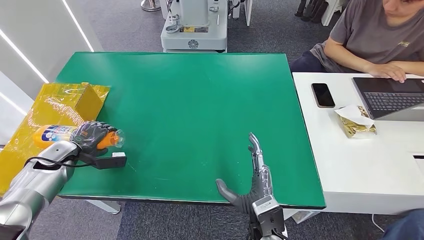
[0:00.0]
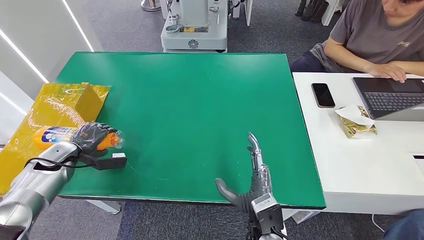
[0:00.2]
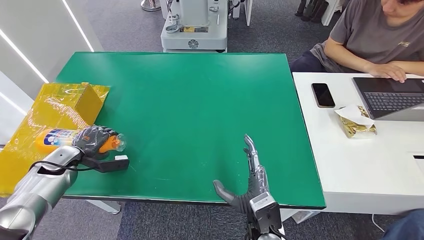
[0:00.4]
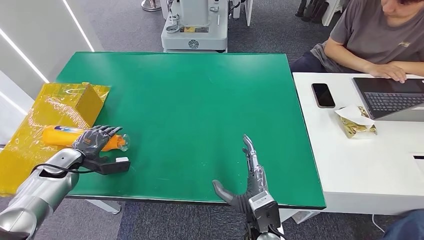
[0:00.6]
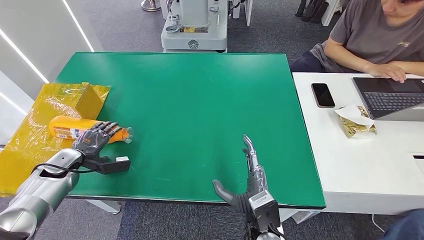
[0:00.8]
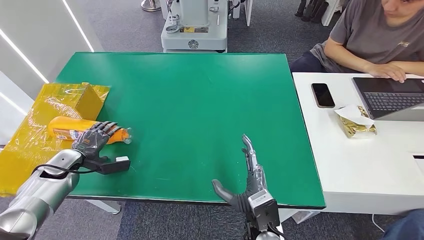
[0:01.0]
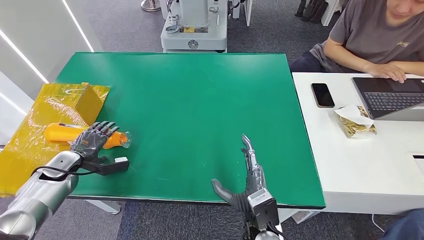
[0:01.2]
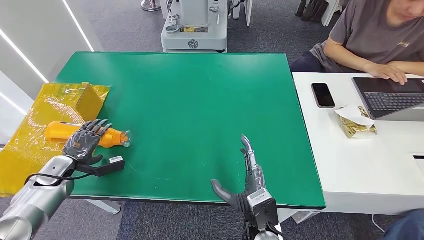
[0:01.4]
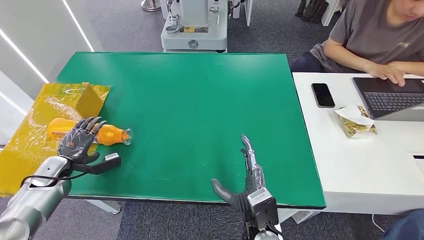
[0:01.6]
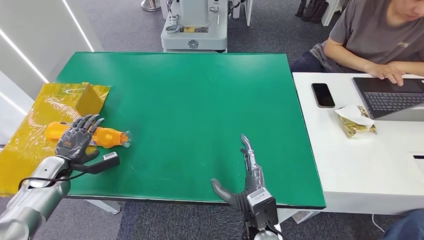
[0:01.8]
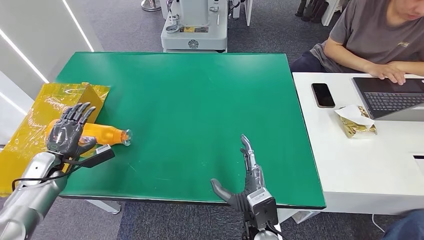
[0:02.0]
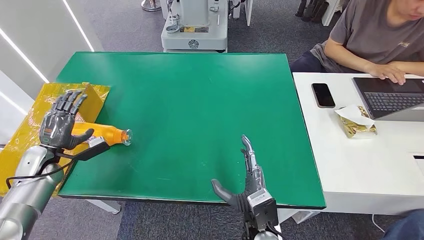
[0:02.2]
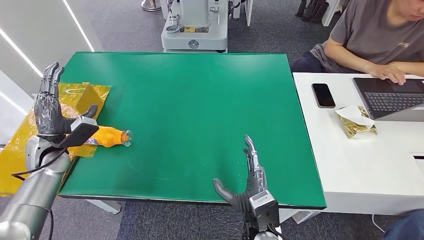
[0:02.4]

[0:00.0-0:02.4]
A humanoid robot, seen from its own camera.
Step, 0:00.0 to 0:02.4: Turn the bottle to the front side.
0:00.0 to 0:01.2: The hands stay close to where they were, moving slightly.
0:01.2 to 0:02.4: The left hand goes approximately 5 cm upward.

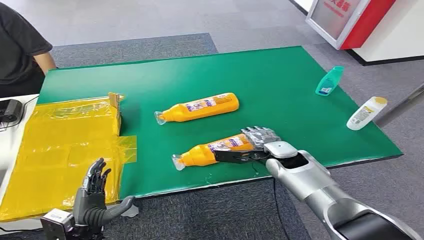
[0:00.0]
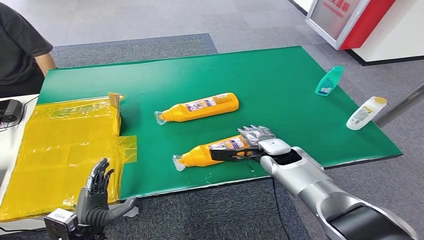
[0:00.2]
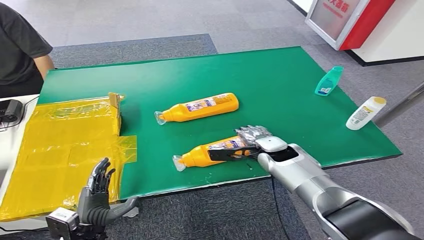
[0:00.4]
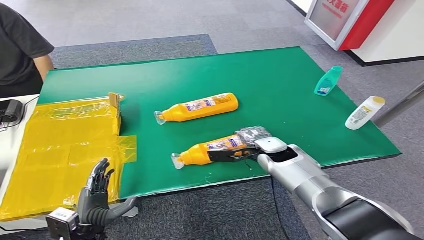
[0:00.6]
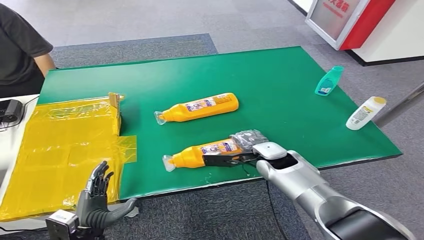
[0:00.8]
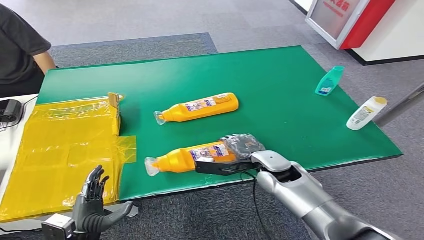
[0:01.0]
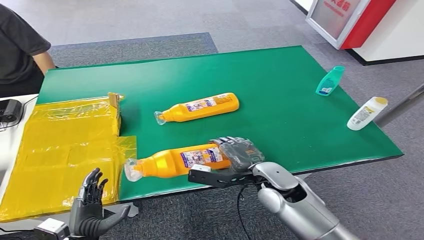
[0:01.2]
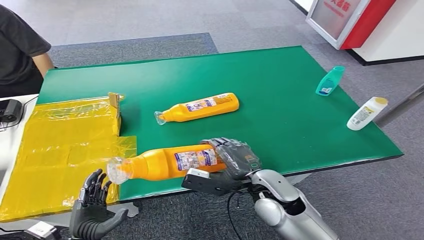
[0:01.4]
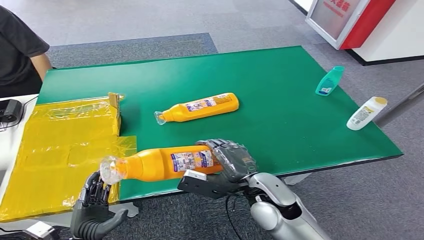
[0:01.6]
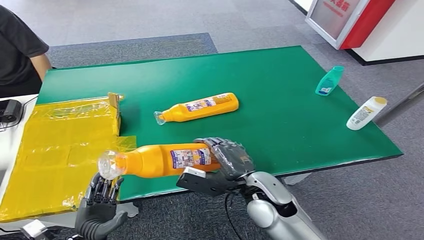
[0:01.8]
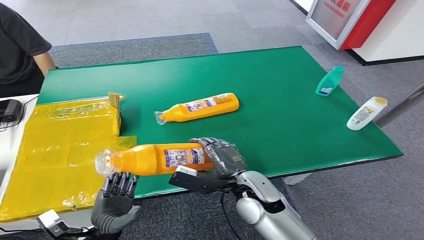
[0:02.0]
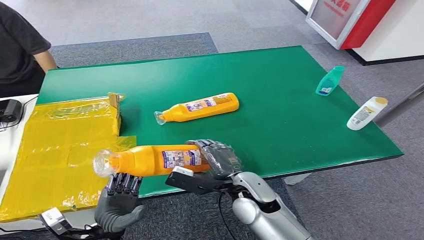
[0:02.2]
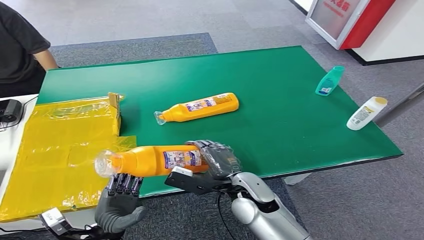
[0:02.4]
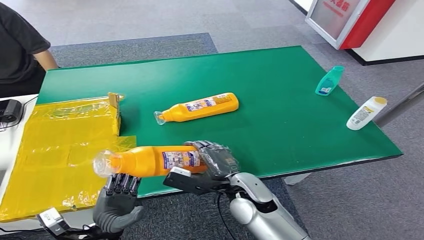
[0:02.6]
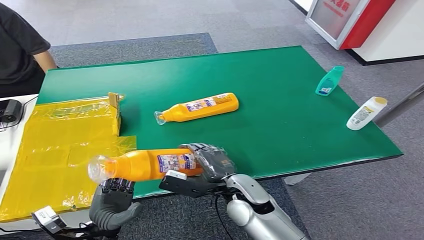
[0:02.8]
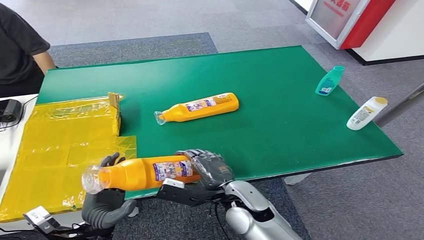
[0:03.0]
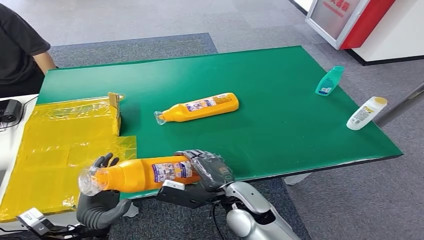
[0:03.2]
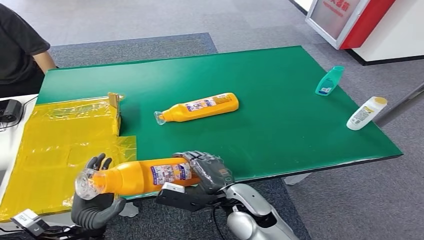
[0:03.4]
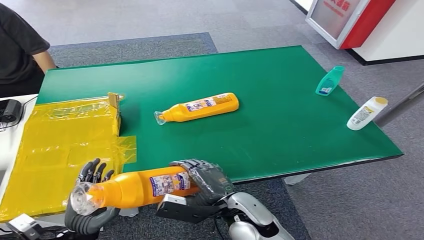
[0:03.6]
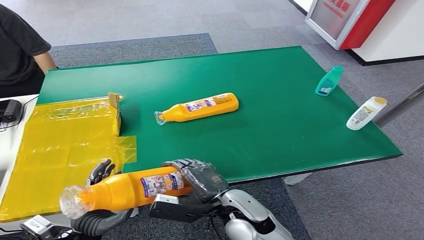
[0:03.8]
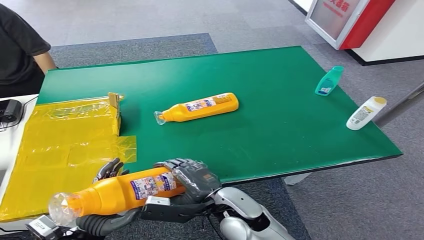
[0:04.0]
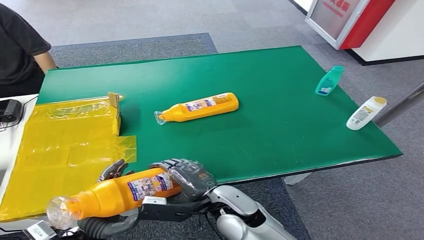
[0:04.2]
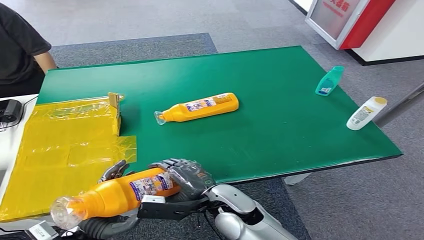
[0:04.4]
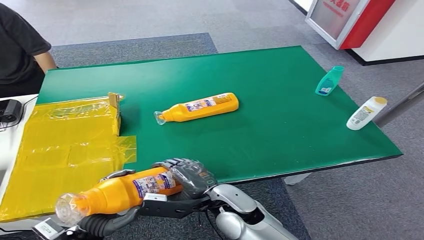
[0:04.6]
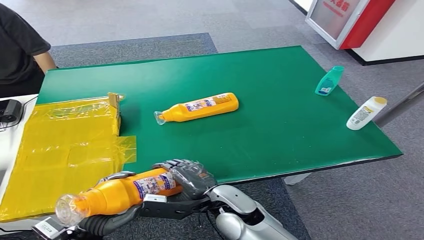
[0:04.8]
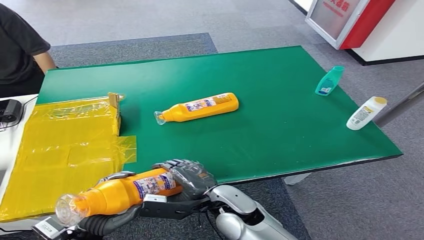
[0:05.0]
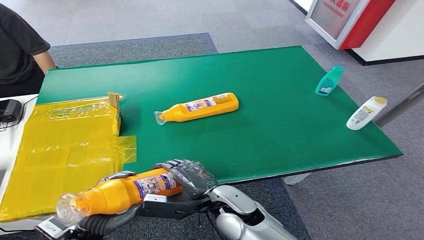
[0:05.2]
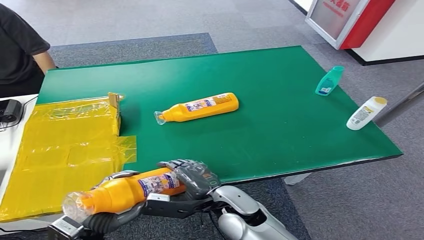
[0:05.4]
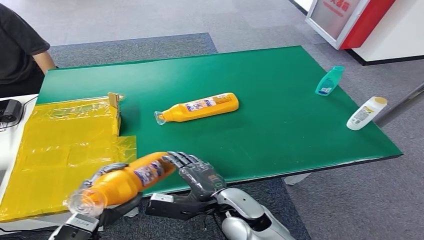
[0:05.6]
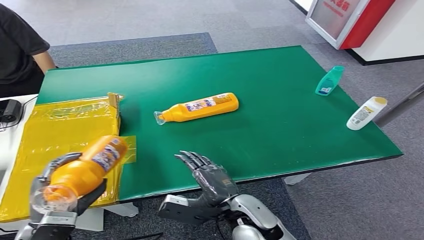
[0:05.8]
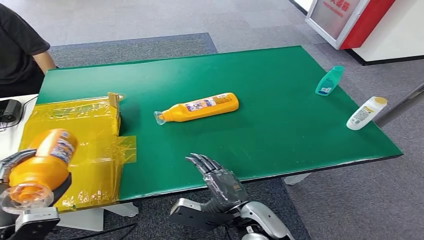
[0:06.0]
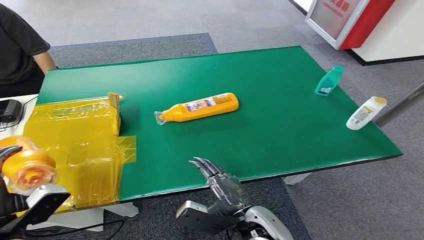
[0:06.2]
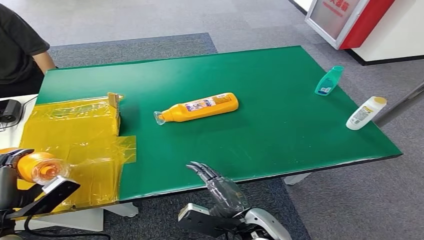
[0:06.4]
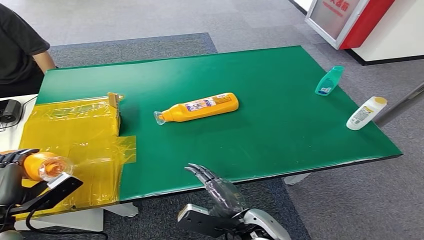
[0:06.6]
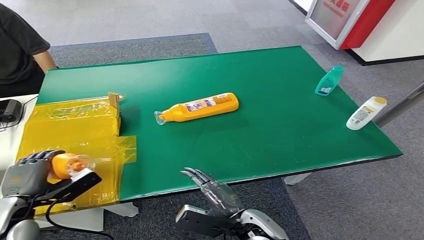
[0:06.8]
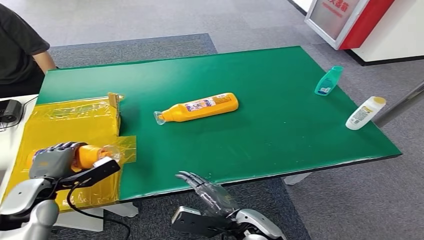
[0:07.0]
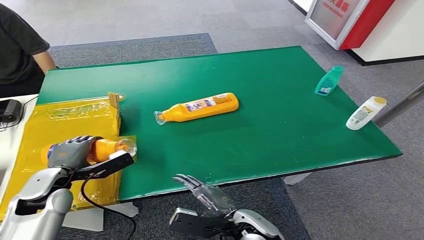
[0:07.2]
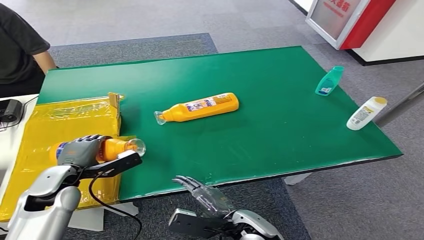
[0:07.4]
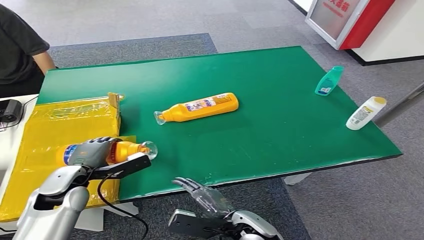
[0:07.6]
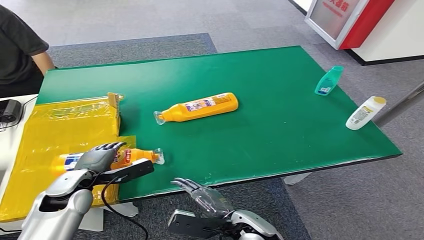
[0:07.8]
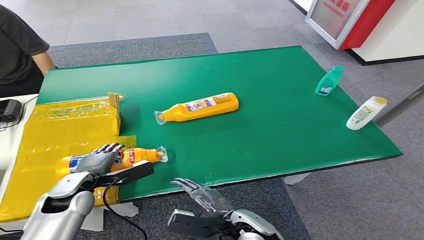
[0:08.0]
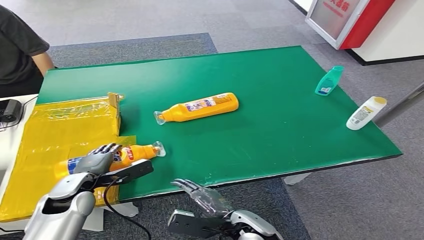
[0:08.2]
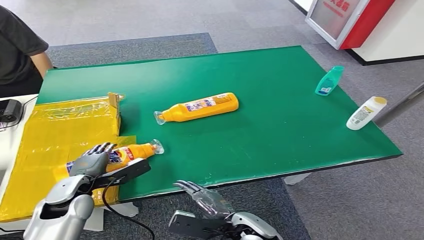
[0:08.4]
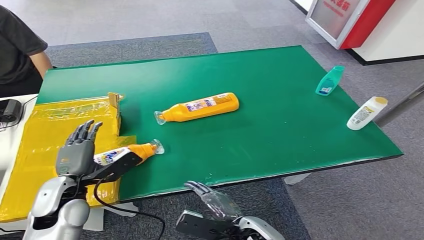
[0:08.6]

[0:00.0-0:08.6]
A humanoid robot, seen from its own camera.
Step, 0:00.0 to 0:02.2: Pick up the bottle from the table.
Step, 0:03.8 to 0:08.6: Turn the bottle to the front side.
0:01.4 to 0:02.8: The left hand changes place by about 5 cm. Meanwhile the right hand shifts approximately 5 cm to the left.
0:02.8 to 0:04.4: The hands move only a little.
0:04.4 to 0:05.8: The left hand shifts some 5 cm upward.
0:05.8 to 0:07.2: The left hand moves forward, roughly 10 cm; the right hand ends up approximately 5 cm from where it was.
0:07.2 to 0:08.6: The left hand shifts by some 5 cm.
